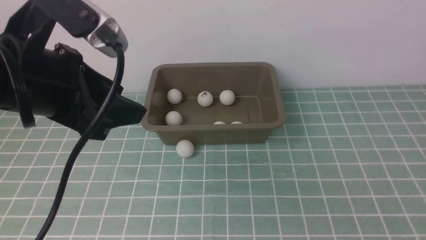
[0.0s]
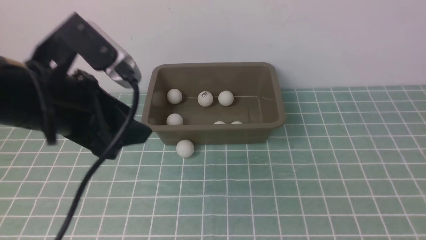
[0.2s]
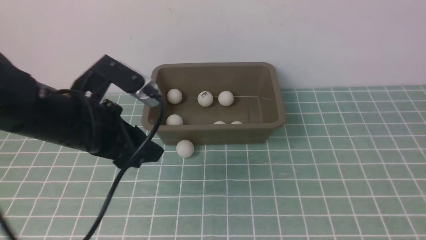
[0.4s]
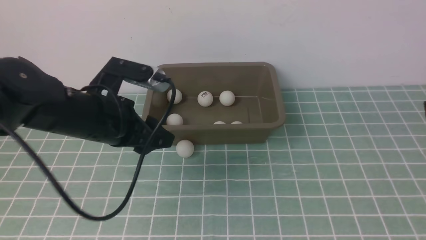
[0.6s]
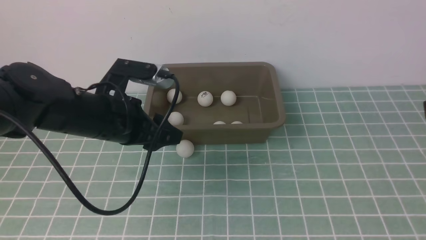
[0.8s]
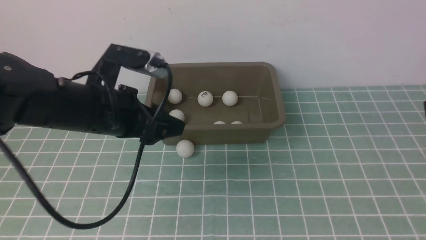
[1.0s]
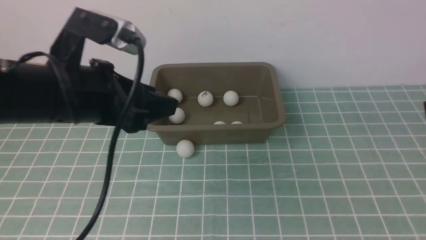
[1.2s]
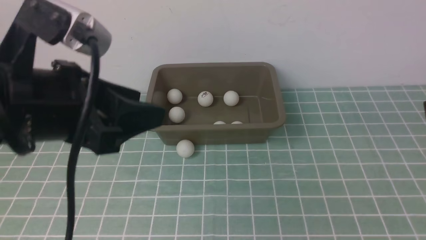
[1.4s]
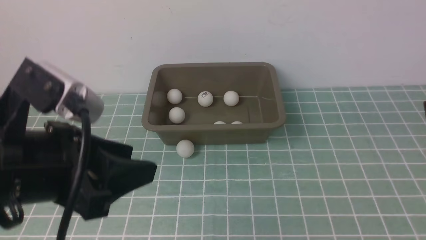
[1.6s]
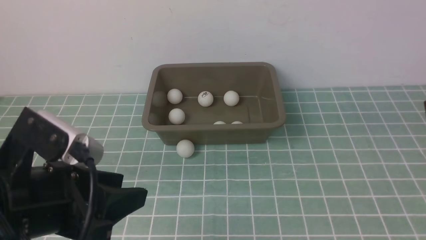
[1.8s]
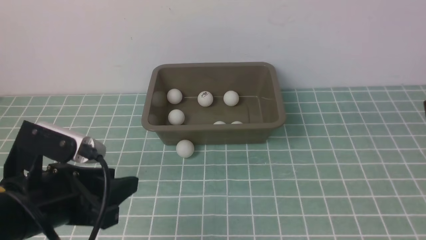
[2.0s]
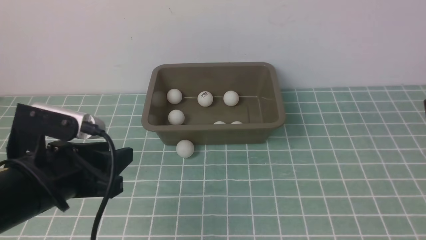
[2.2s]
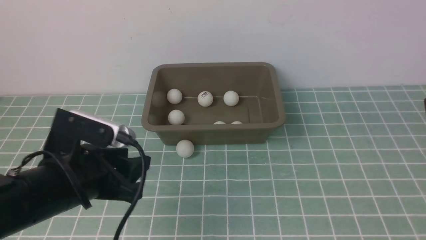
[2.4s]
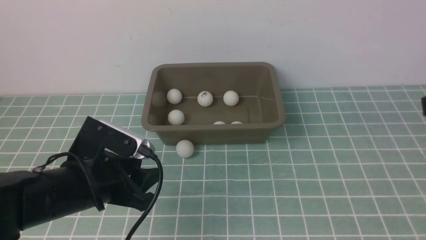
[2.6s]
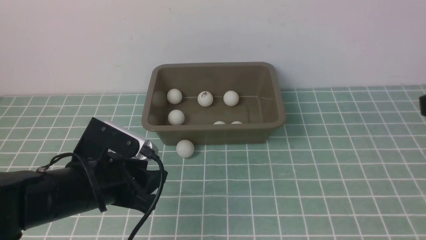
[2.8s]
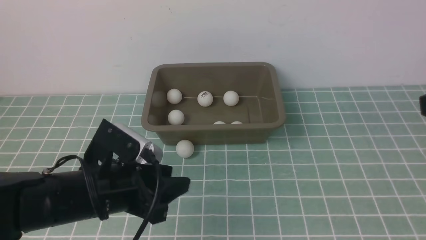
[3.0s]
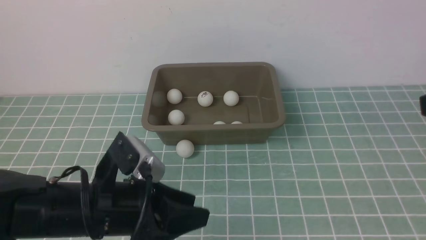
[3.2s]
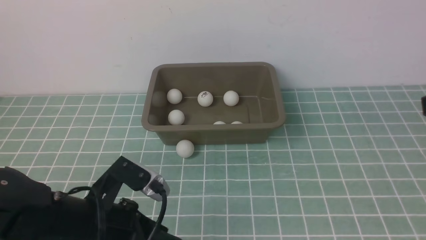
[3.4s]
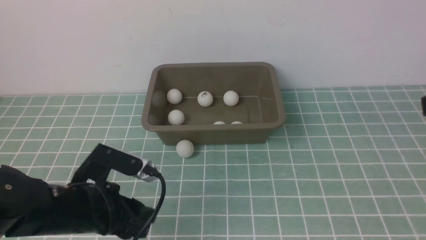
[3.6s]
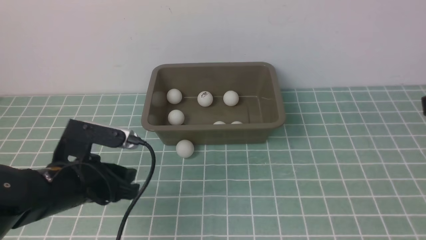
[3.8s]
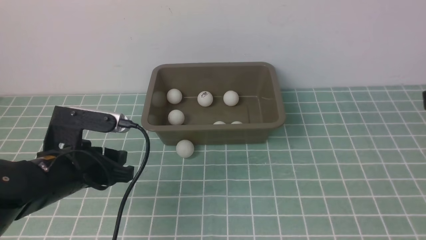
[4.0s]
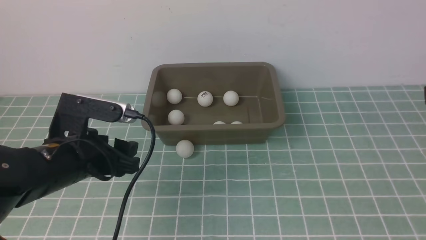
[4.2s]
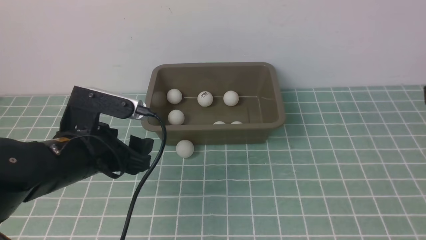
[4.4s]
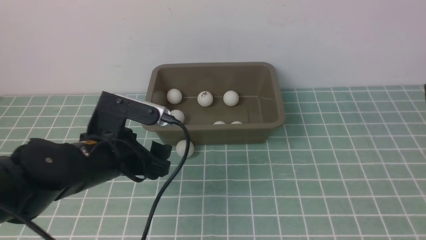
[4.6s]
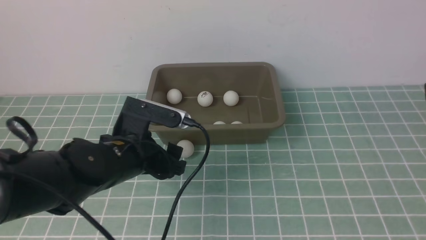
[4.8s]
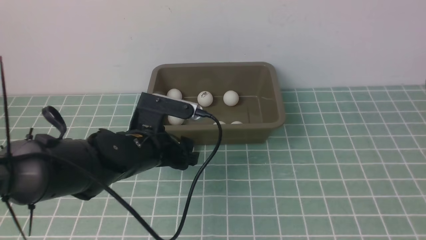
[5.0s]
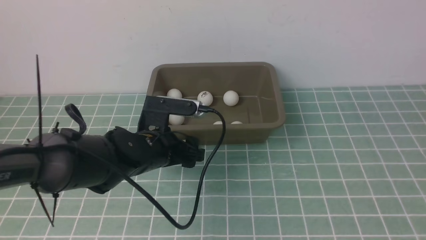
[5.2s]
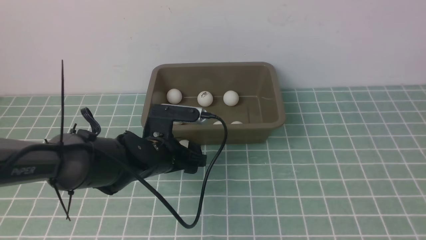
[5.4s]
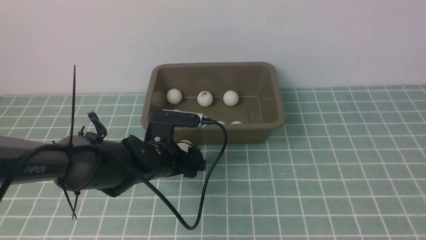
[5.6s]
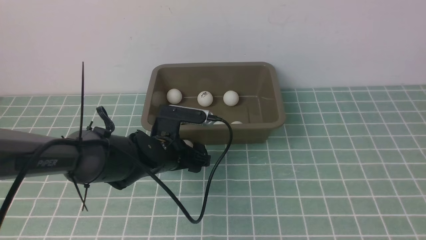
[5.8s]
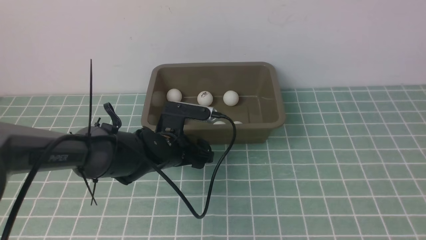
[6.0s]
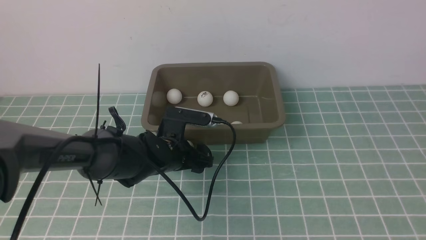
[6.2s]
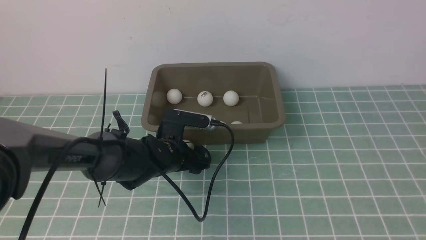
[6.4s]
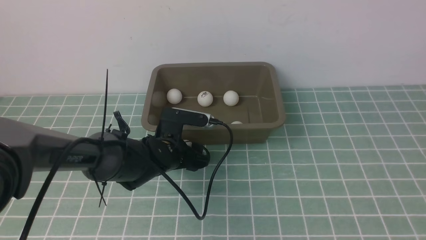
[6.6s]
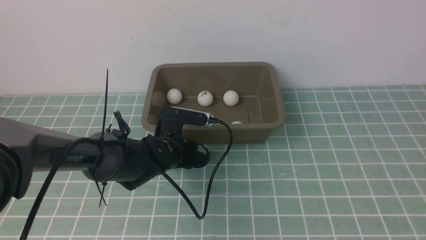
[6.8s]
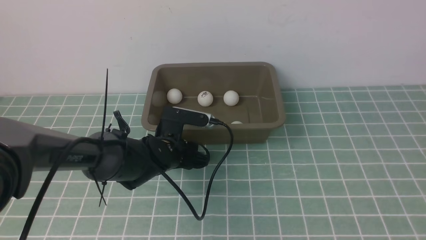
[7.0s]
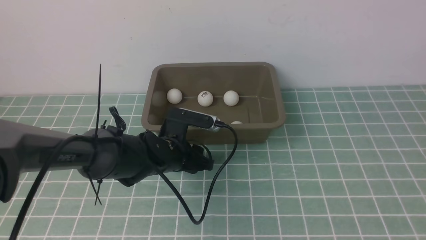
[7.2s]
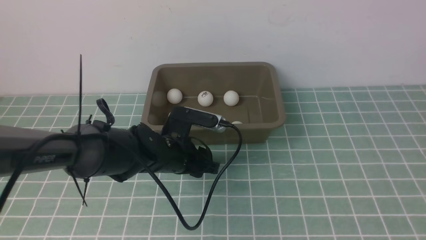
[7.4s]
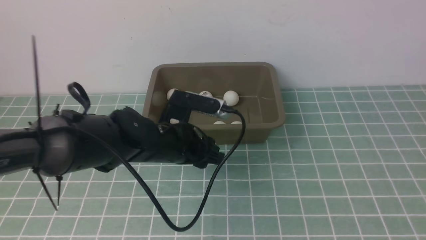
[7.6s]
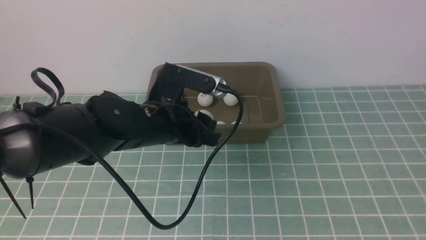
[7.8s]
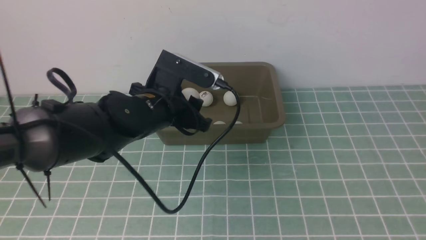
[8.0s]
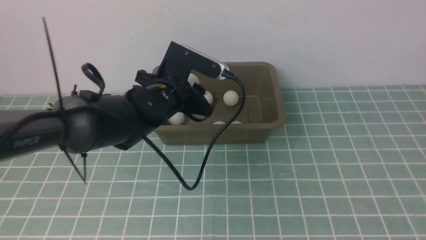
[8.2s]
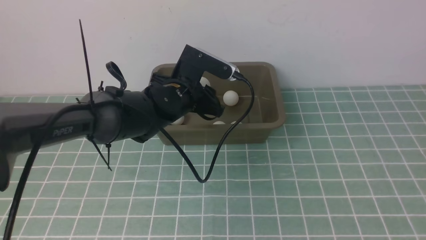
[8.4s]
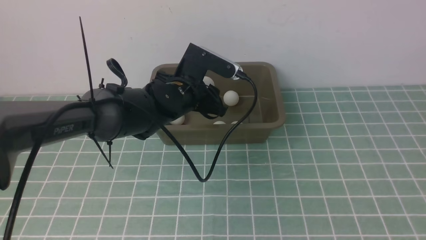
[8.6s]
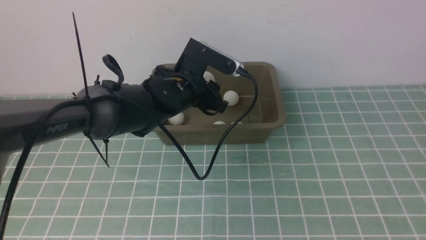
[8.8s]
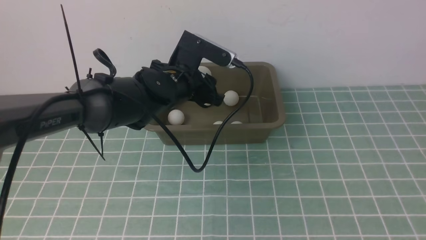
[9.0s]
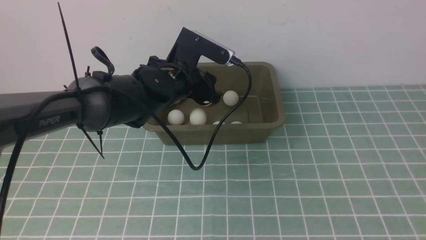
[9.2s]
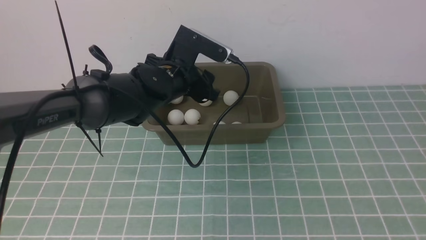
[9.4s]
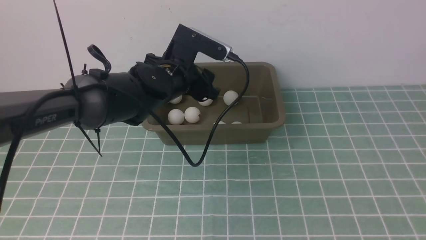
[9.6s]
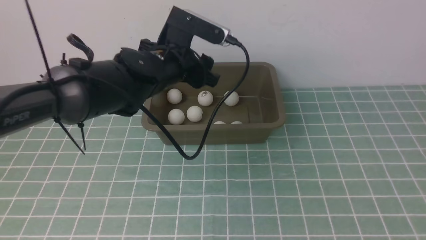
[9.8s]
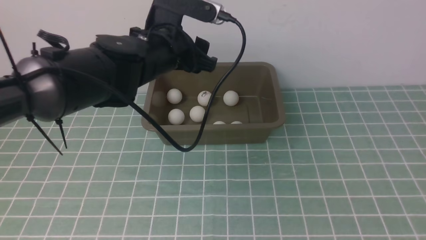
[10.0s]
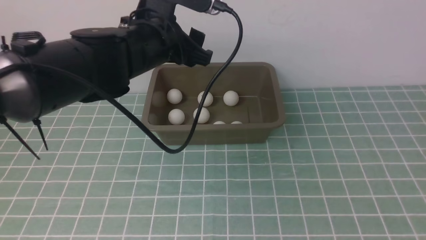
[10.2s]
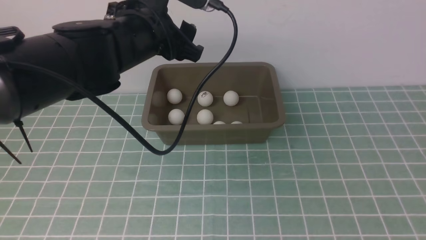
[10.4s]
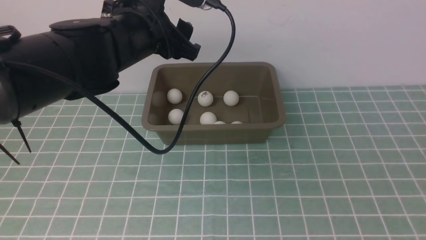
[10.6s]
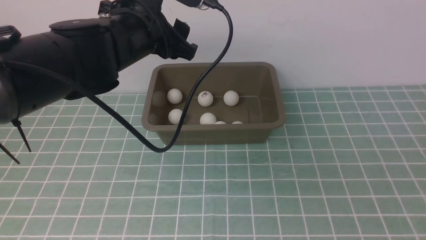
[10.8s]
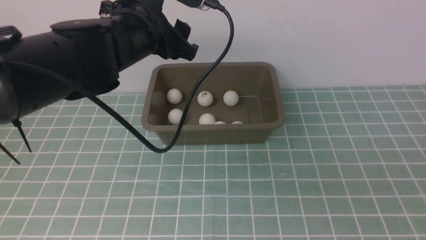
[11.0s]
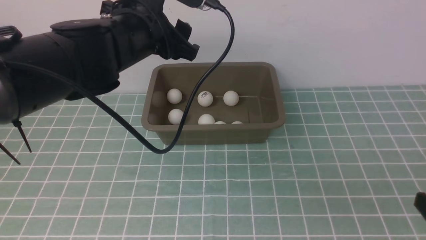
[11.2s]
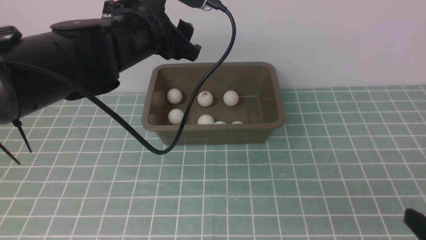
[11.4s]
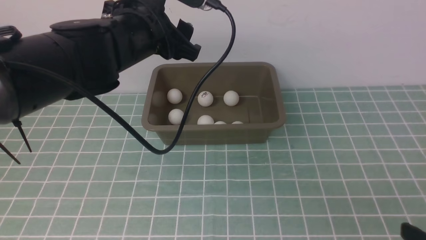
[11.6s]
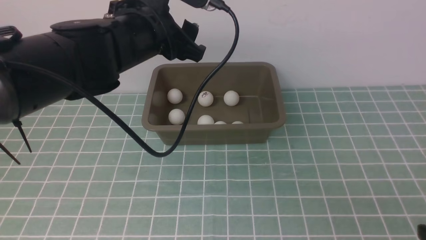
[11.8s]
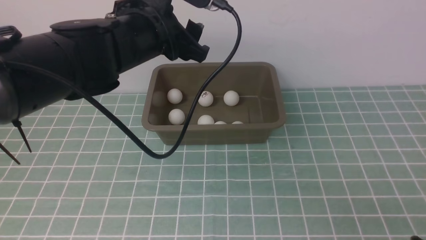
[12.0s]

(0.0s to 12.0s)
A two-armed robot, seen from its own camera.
Step, 0.0s - 7.6s: use the left arm to clamp the table tennis ball closest to it.
Step, 7.8s - 9.4s: use the left arm to put the table tennis ball into the box.
0.0s - 1.6s: The left gripper heads backward, covering some 5 cm.
1.6s - 3.0s: The left gripper shifts roughly 10 cm downward.
3.0s - 4.4s: The left gripper goes about 5 cm forward, and opens up.
4.4s - 6.0s: The left gripper moves downward, forward and to the right, roughly 15 cm.
6.0s - 7.6s: The left gripper heads upward, covering about 5 cm, and closes up.
7.6s - 9.0s: The left gripper shifts roughly 10 cm forward.
9.0s - 10.4s: The left gripper heads upward, covering roughly 10 cm, and opens. Meanwhile the right gripper heads backward, covering some 10 cm.
10.4s - 12.0s: The right gripper travels downward by approximately 20 cm.

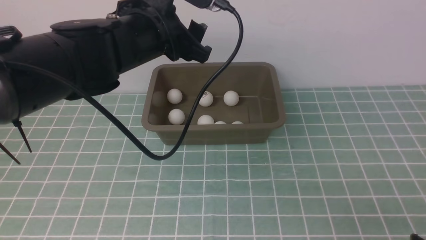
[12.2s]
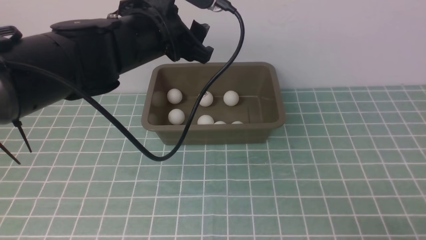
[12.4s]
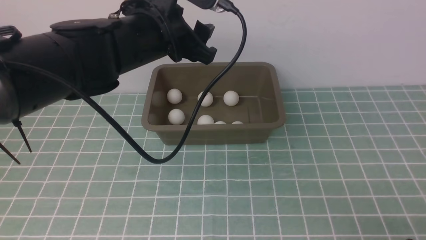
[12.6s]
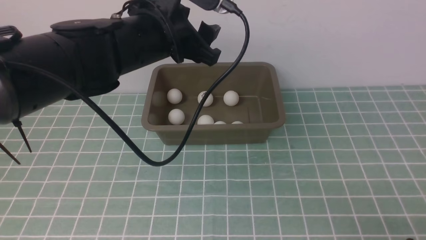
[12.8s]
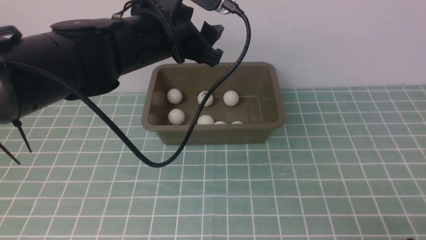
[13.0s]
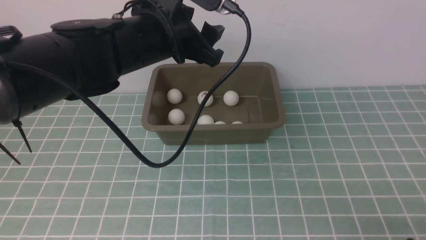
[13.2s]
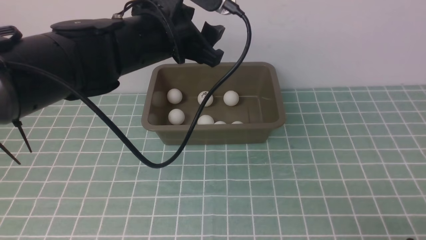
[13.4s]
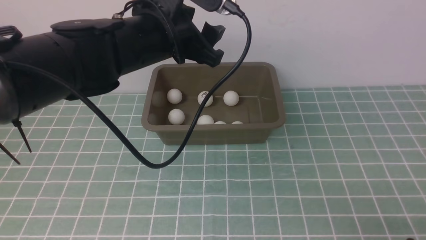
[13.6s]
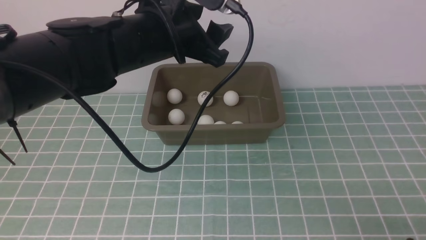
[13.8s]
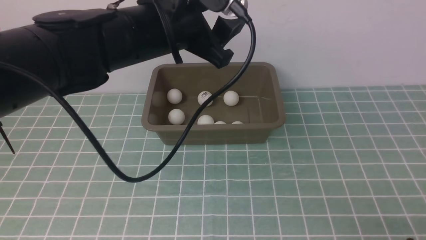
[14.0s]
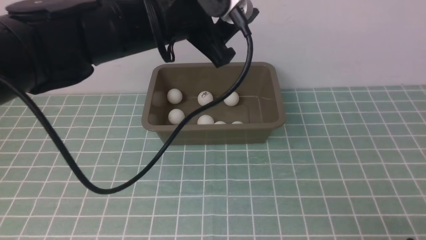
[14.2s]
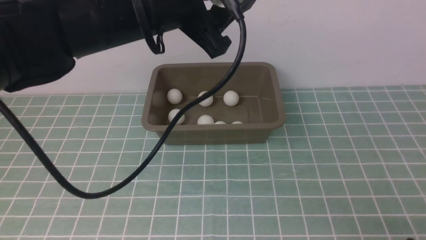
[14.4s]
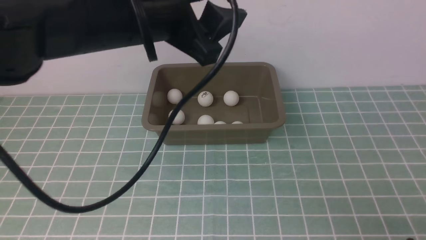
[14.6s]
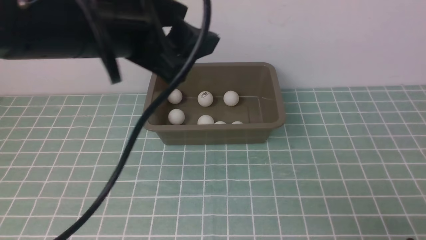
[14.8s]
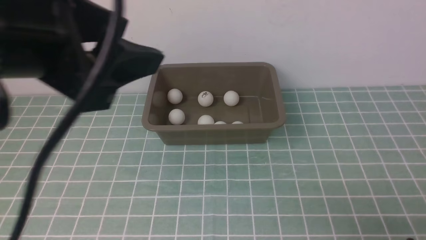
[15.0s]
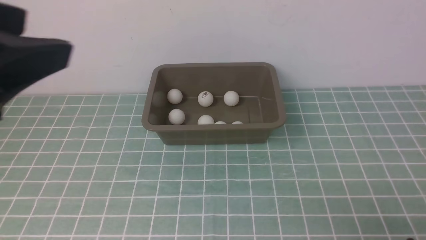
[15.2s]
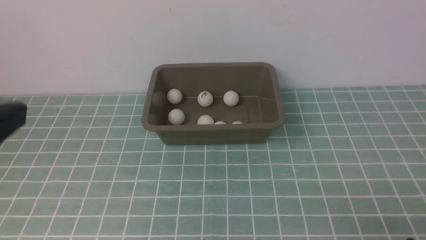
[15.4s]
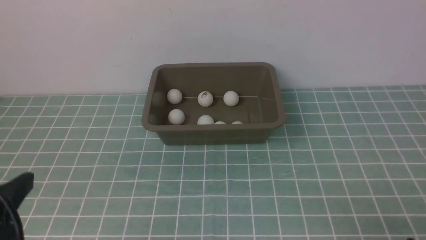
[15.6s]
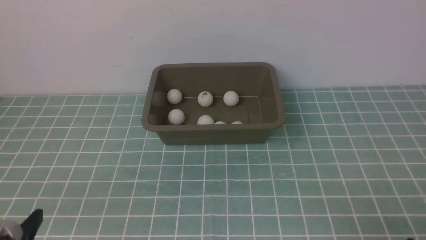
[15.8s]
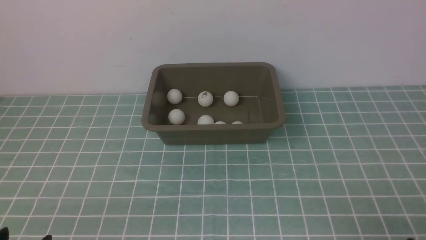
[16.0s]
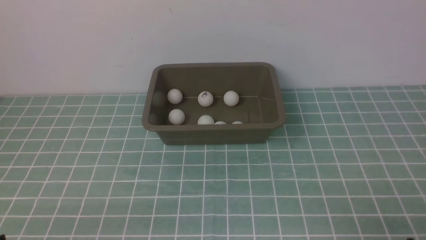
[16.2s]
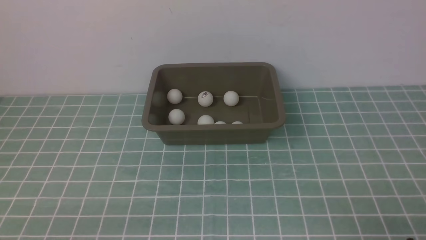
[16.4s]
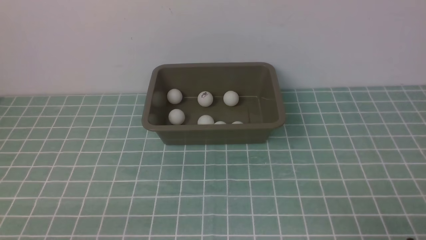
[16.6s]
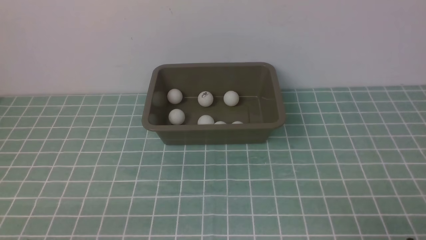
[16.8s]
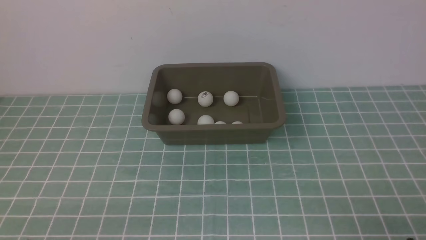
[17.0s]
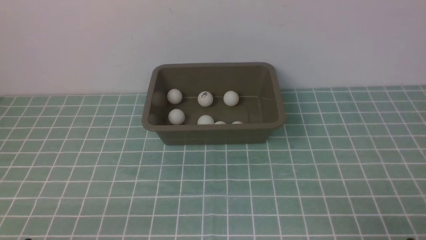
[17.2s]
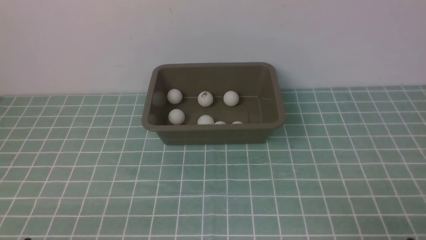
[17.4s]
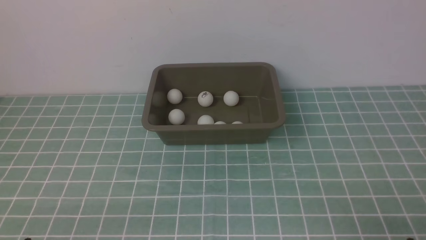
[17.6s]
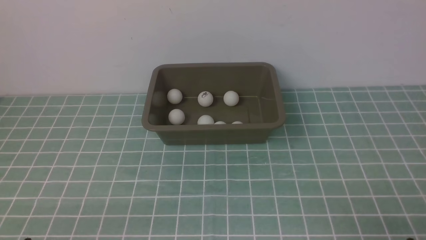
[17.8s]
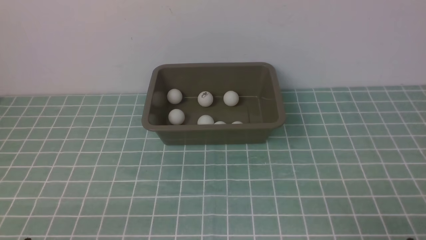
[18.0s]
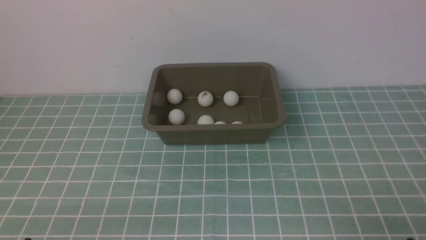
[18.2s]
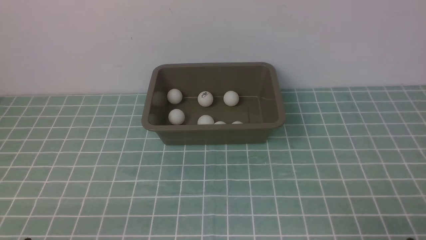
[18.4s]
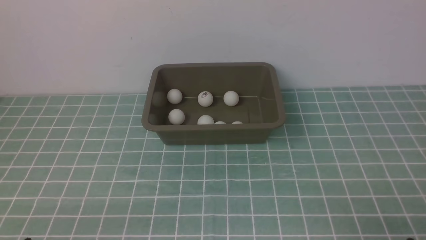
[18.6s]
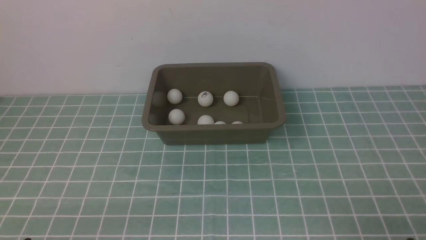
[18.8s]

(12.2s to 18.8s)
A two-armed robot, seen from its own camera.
12.2s - 13.8s: The grippers move only a little.
13.8s - 15.4s: The left gripper is displaced backward and to the left by roughly 25 cm.
15.4s - 17.2s: The left gripper goes approximately 25 cm downward.
17.2s - 18.8s: Both grippers stay about where they are.
